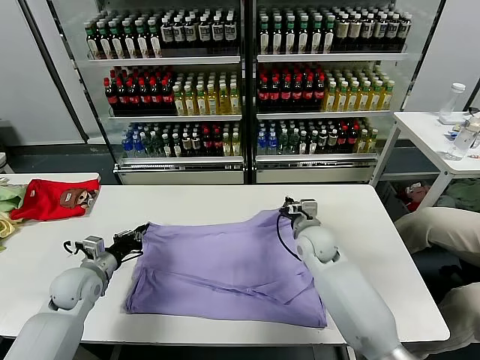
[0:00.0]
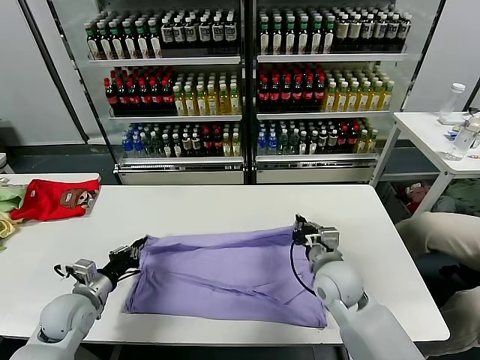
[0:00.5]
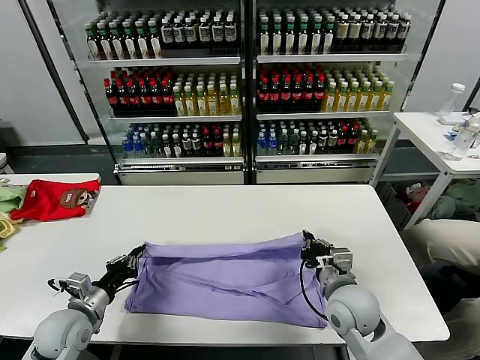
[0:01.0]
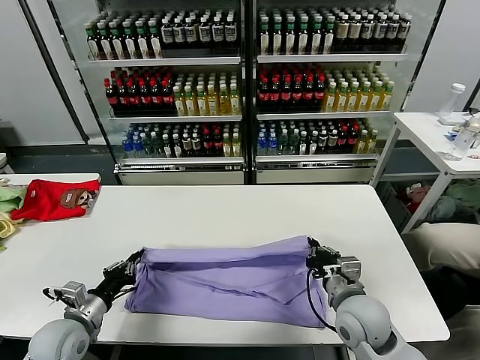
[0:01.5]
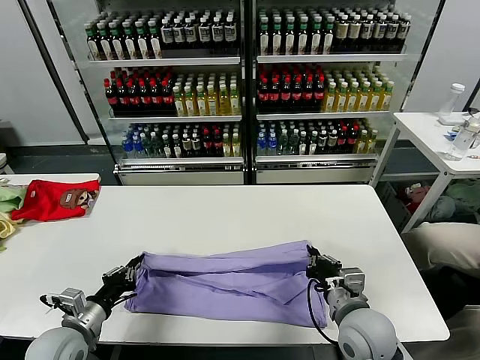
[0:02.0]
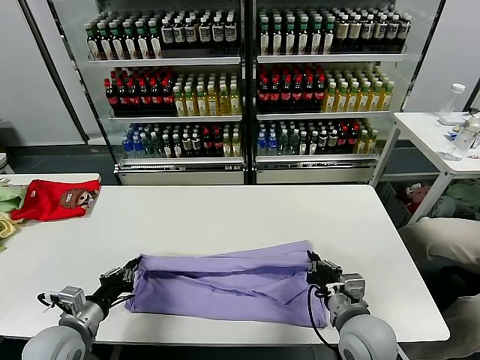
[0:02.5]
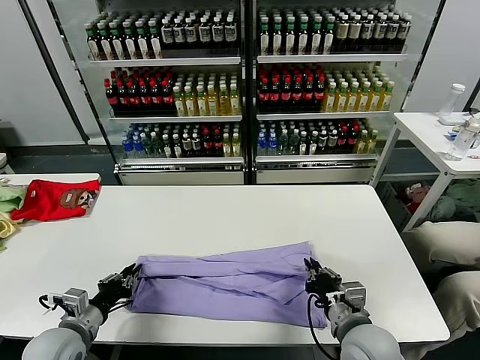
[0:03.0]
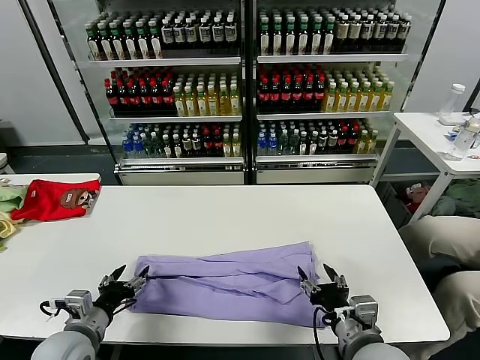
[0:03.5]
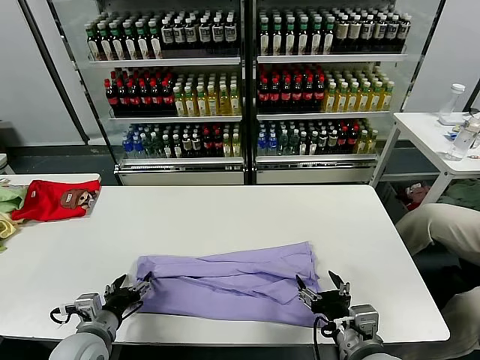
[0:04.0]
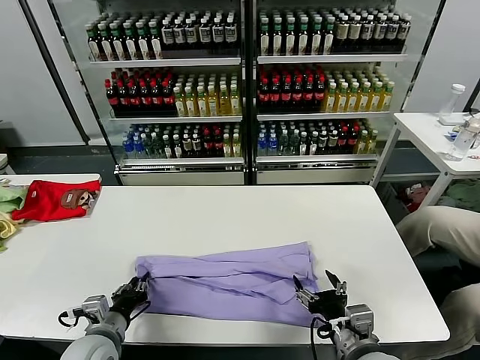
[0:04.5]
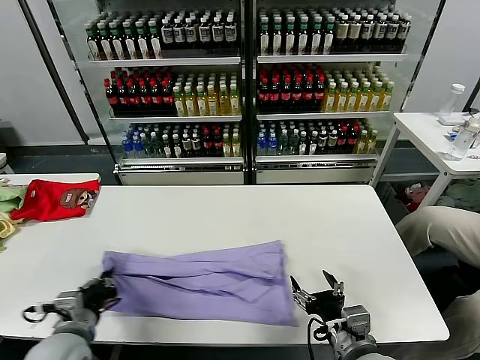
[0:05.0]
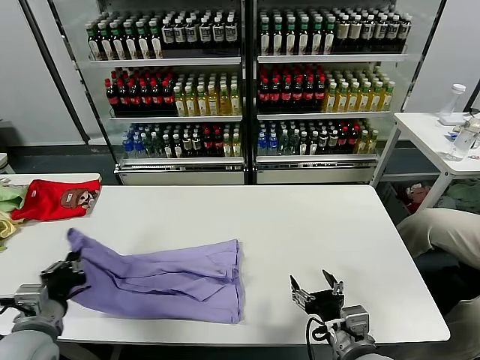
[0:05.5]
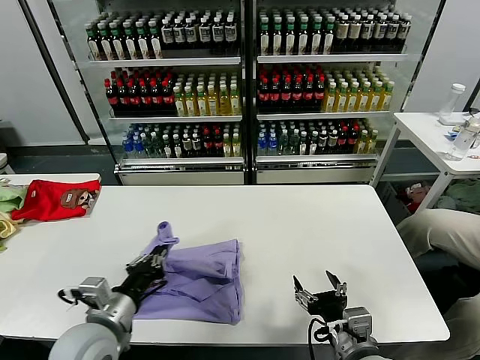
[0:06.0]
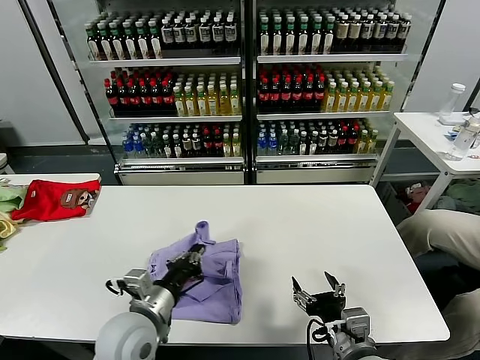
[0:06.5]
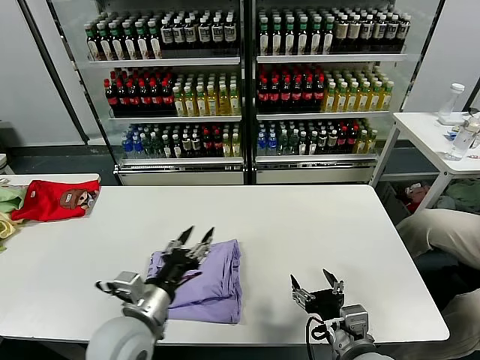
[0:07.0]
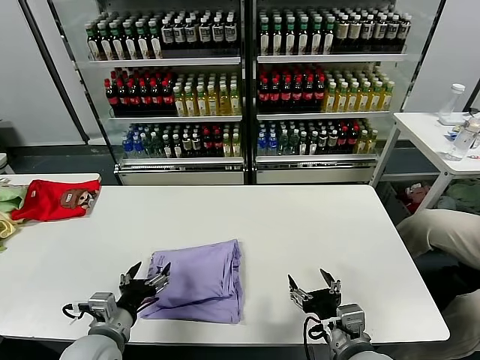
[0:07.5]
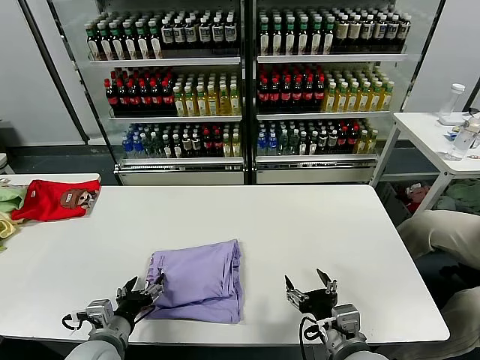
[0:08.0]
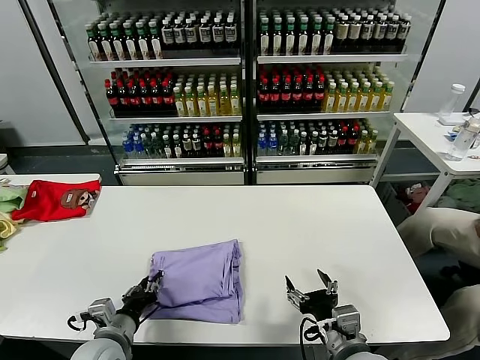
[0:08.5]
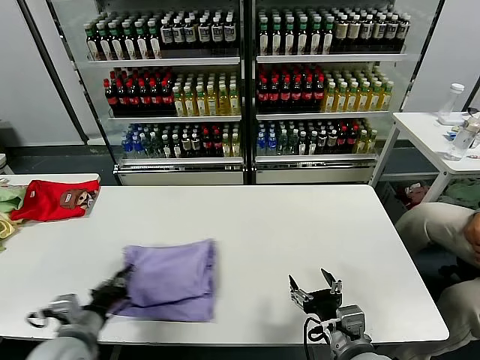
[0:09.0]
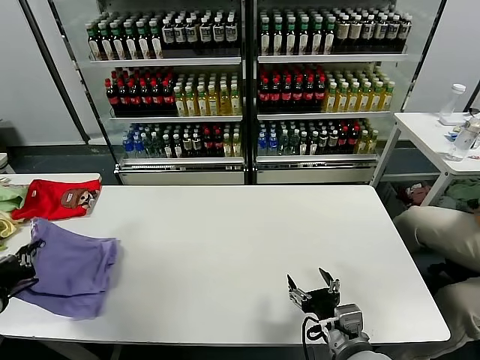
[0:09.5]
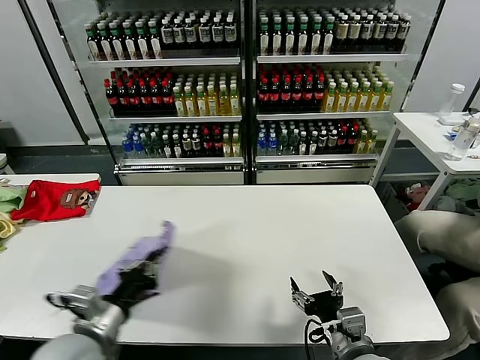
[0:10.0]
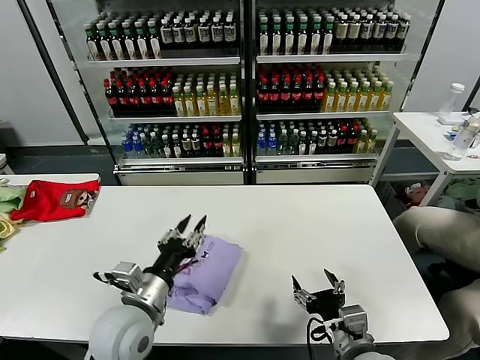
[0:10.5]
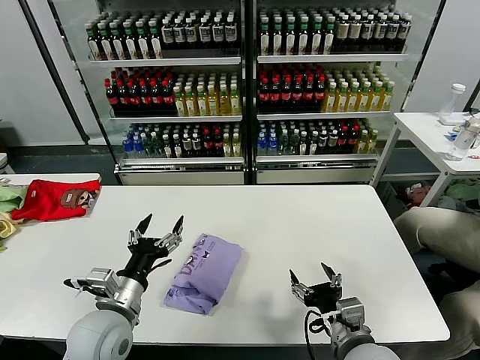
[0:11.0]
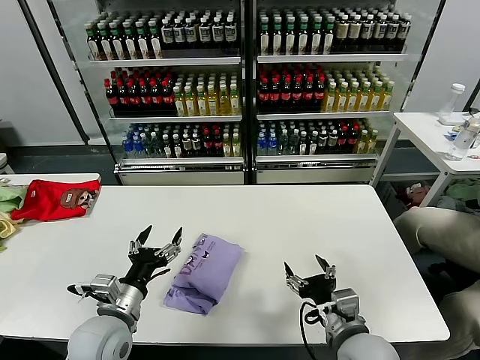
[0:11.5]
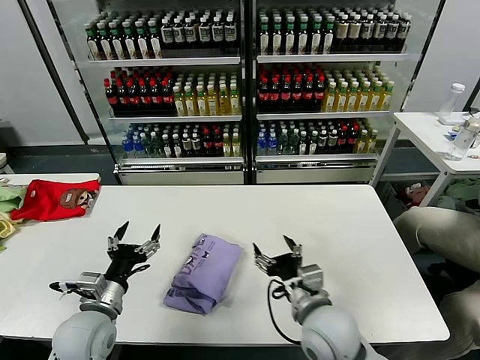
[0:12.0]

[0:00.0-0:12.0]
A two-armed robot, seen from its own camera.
Task of the whole recording: fold and organize the clothes.
Step, 0:00.0 to 0:03.5: use both grippers to drag the upper edge of the fabric backward and fold it over the lower edge.
Step, 0:04.0 to 0:04.5: use the left gripper to clamp the left edge of the fabric.
Step, 0:05.0 to 0:06.5: use the left gripper to drag the left edge of the fabric to the left and folds it over the right edge.
Step, 0:07.0 to 0:10.5: Flip the folded clothes over with left gripper.
0:00.0 to 0:02.0: The two grippers go about 15 cm backward.
0:02.0 to 0:04.0: The right gripper shifts approximately 10 cm backward, and opens up, while the left gripper opens up.
0:04.0 to 0:06.0: The left gripper goes roughly 10 cm upward and to the right, and closes its fingers.
0:06.0 to 0:08.0: The left gripper shifts about 10 cm downward, goes to the right and returns, approximately 5 cm each way, and opens up.
0:08.0 to 0:10.0: The left gripper moves upward, roughly 10 cm, reaches some 15 cm to the left, then returns, and closes up.
0:10.0 to 0:12.0: The left gripper moves downward and forward, about 10 cm, reaches roughly 10 cm to the right, then returns, and opens its fingers. Meanwhile the right gripper goes about 10 cm forward and to the left.

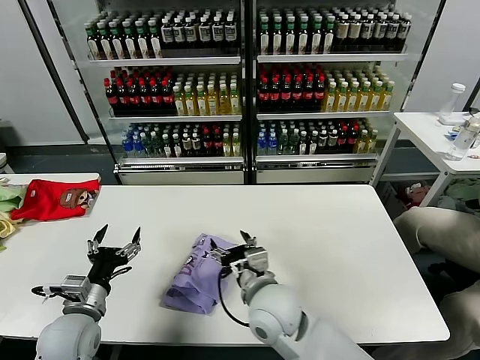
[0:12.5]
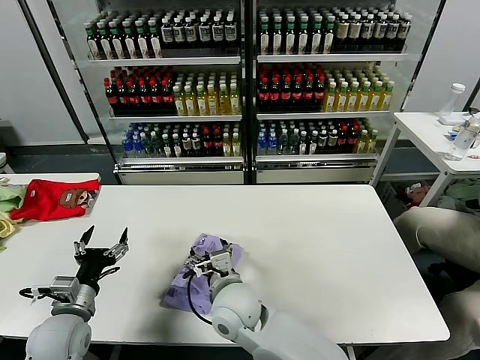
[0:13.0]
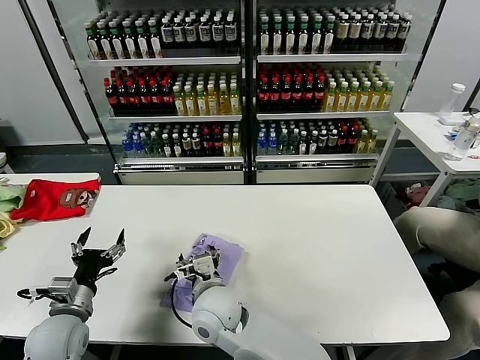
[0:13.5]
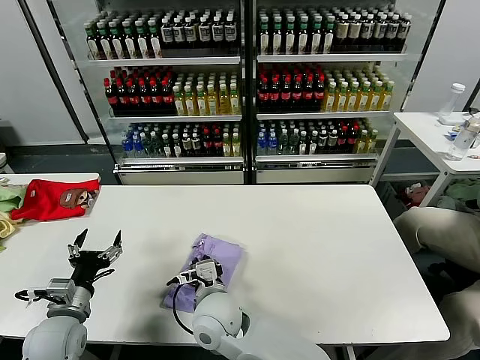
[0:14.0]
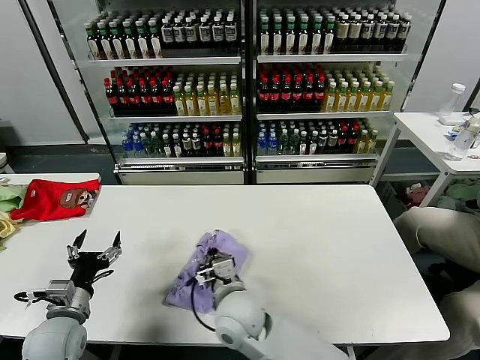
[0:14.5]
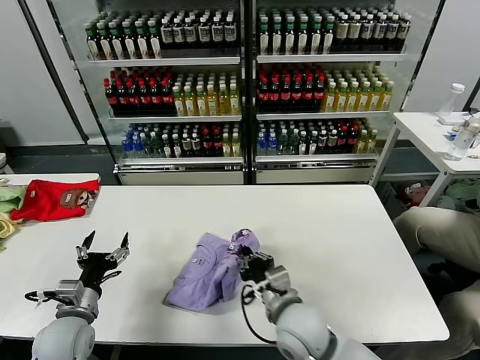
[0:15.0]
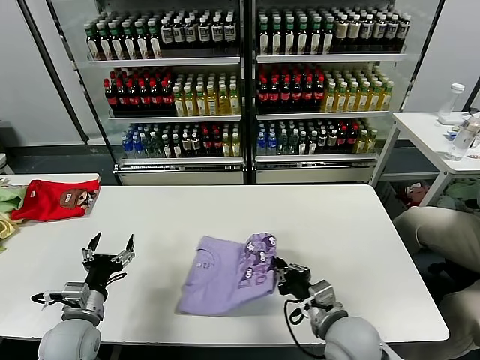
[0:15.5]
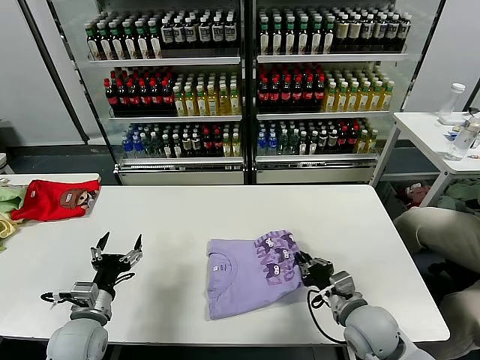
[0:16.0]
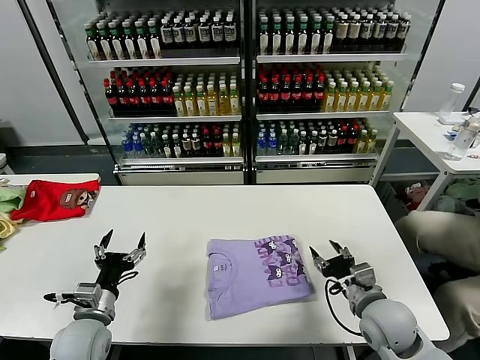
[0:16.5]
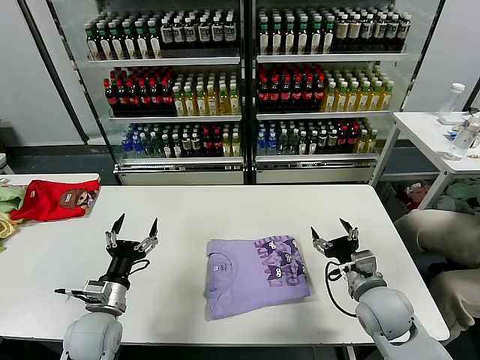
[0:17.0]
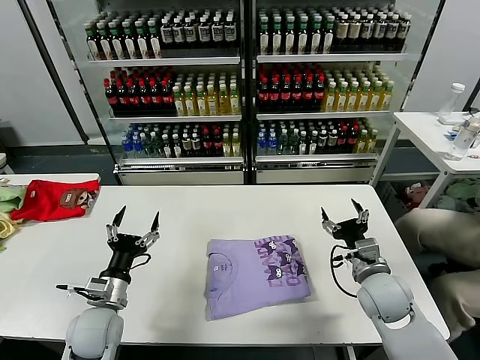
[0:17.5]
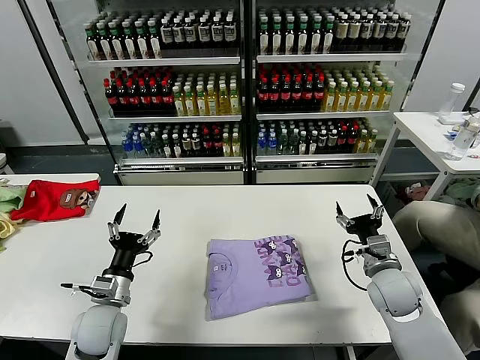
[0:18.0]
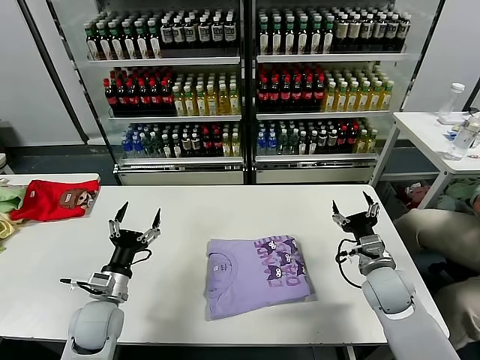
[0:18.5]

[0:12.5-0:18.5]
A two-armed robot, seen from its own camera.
Task of the whole recording: fold and organize the clothes.
Step, 0:12.5 to 0:16.5: Drag the clothes to the center of the table.
0:12.5 to 0:14.5: The right gripper shifts approximately 10 cm to the left, and closes.
0:14.5 to 0:16.5: The right gripper moves to the right, approximately 30 cm, and opens.
0:16.5 to 0:18.5: The right gripper travels forward by some 5 cm, and opens its fingers.

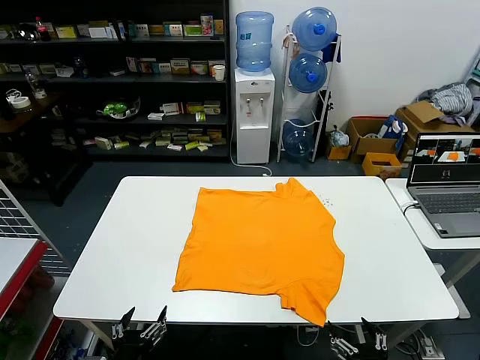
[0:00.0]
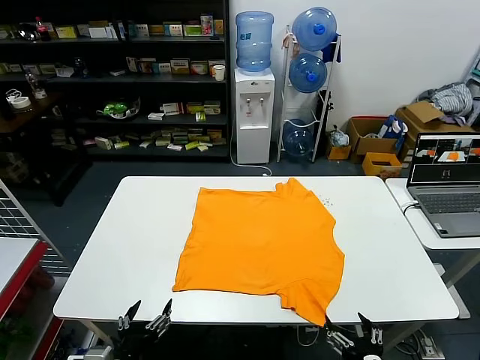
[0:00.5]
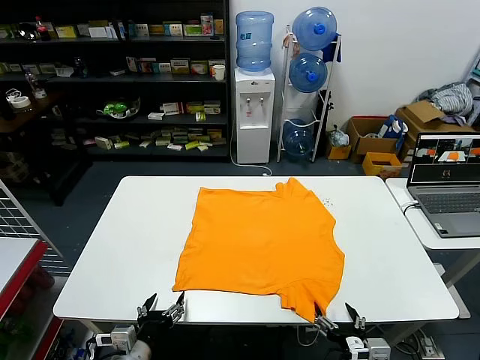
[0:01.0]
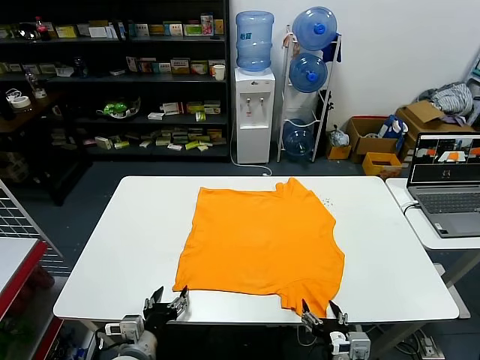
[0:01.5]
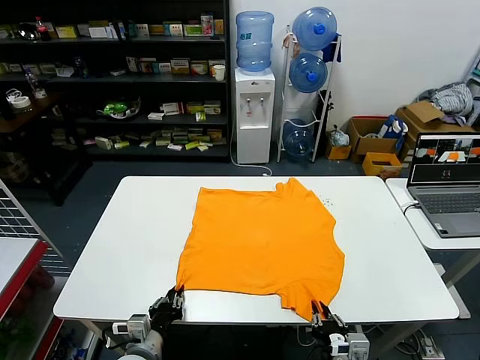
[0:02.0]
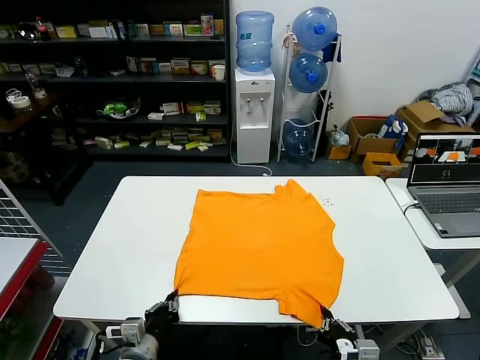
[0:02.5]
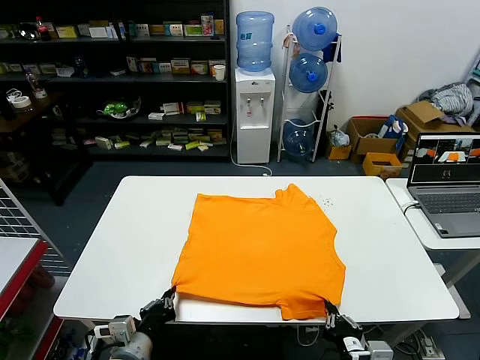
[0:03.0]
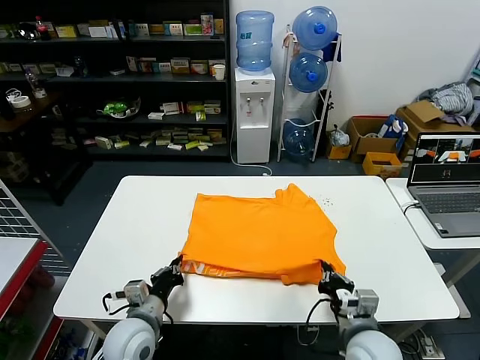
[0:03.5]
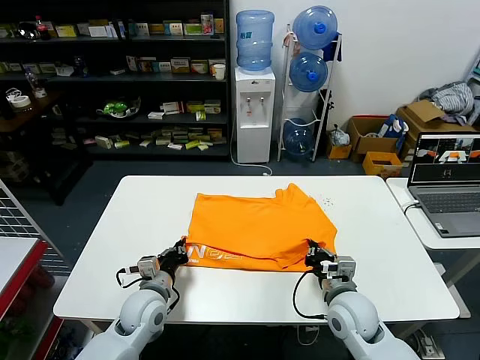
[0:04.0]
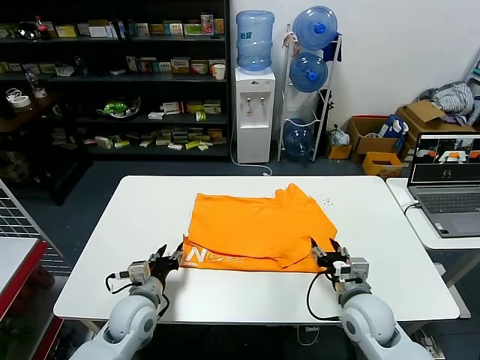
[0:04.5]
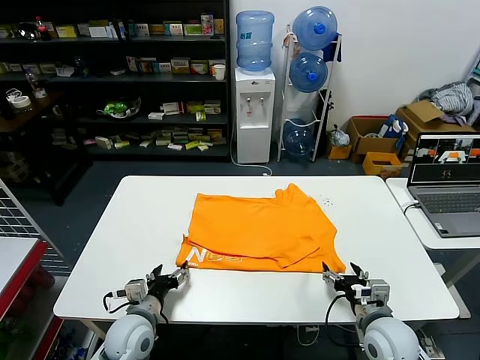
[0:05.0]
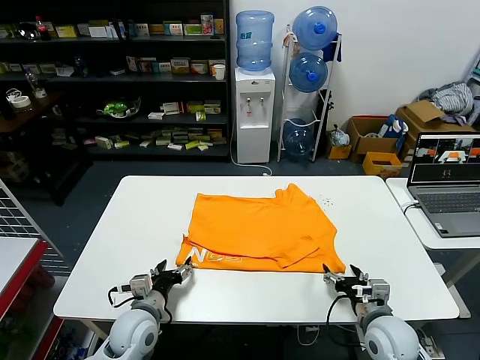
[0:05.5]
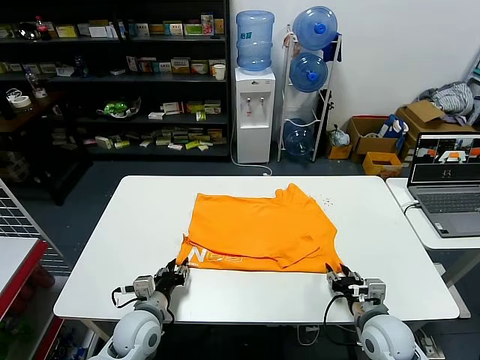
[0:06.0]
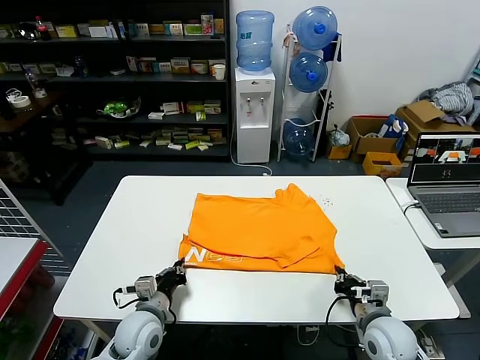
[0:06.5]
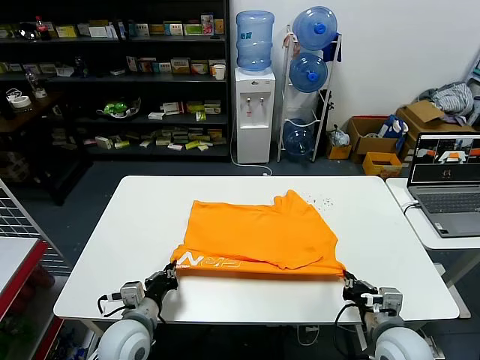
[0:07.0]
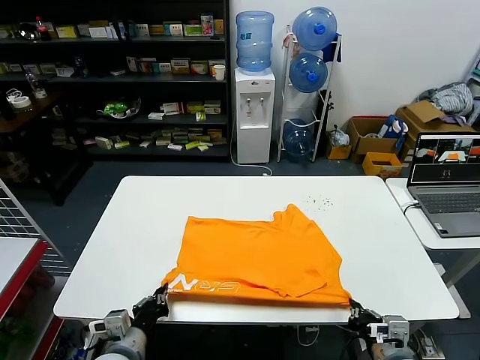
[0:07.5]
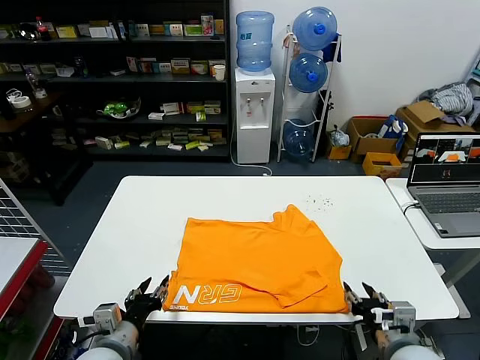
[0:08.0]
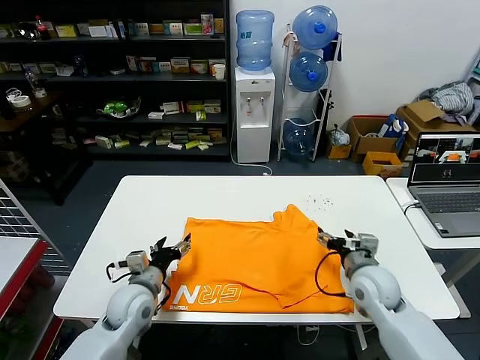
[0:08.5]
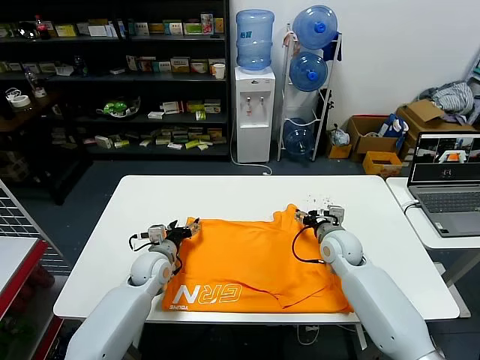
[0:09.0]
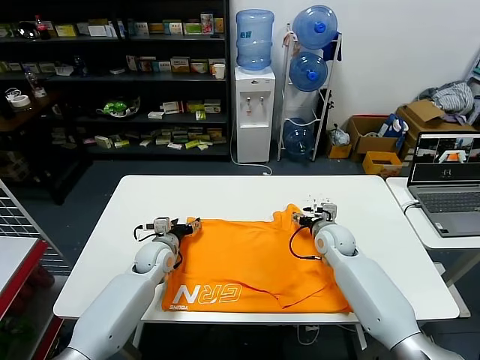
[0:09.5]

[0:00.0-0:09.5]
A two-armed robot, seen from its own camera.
Task of the whole recording: fold and organize the clothes.
Step, 0:00.0 to 0:02.0: use both grippers simultaneously to clamp the lower edge of the clothing fabric.
Step, 0:02.5 to 0:04.0: use both grippers to drag the lower edge of the fabric forward and fold it over the upper edge.
Step, 0:04.5 to 0:07.5: Drag the clothes downward with both gripper.
0:02.0 to 0:04.0: Both grippers travel together forward, some 15 cm.
0:04.0 to 0:05.5: The left gripper opens; the right gripper heads to the right, covering about 10 cm, and opens.
0:05.5 to 0:07.5: The grippers both shift backward by about 10 cm. The left gripper closes its fingers. The right gripper closes up.
0:07.5 to 0:09.5: Both grippers travel together forward, roughly 30 cm. The right gripper opens, while the left gripper opens.
